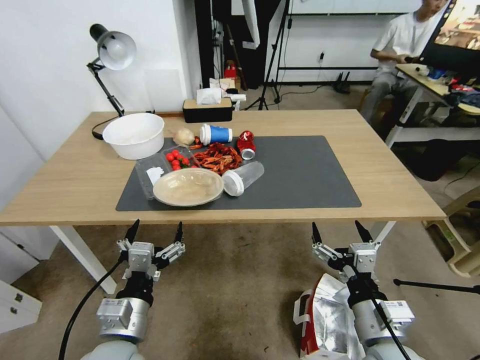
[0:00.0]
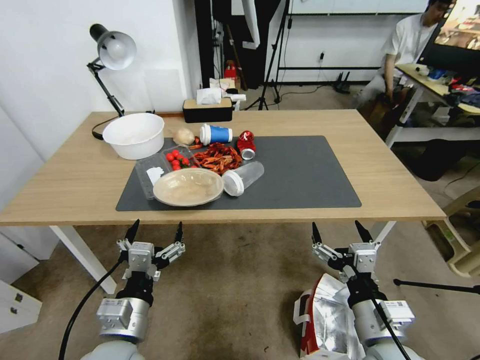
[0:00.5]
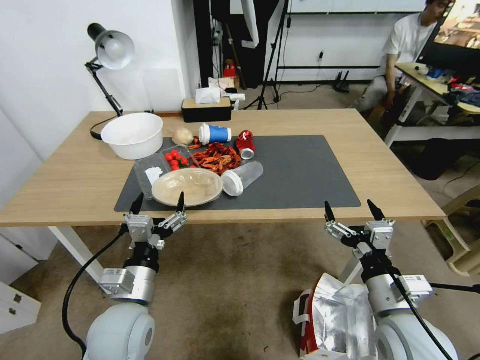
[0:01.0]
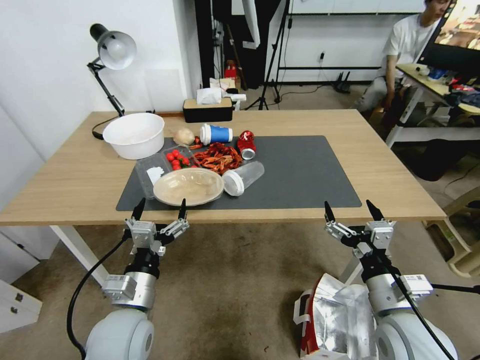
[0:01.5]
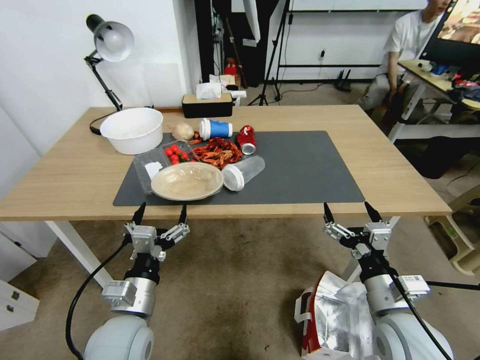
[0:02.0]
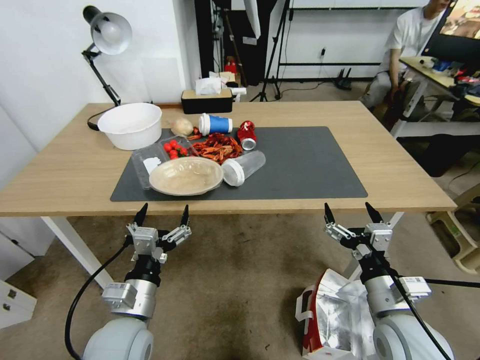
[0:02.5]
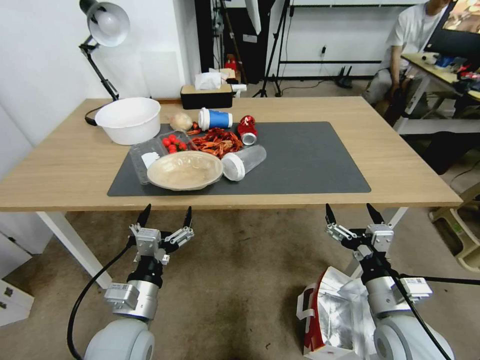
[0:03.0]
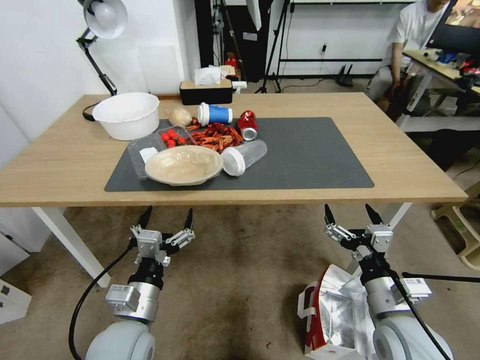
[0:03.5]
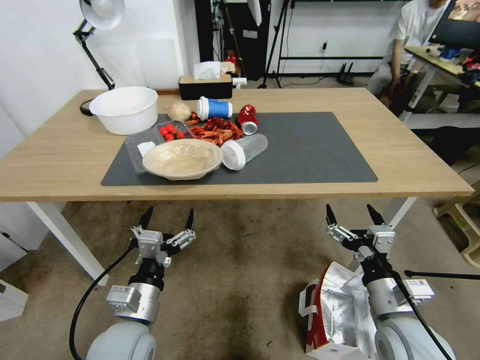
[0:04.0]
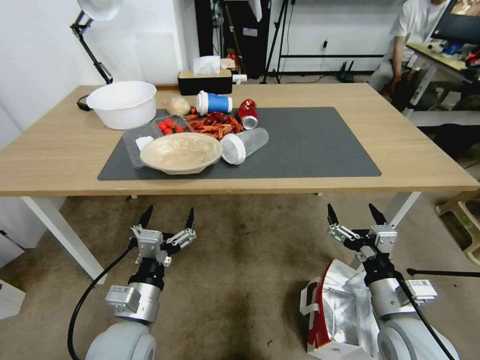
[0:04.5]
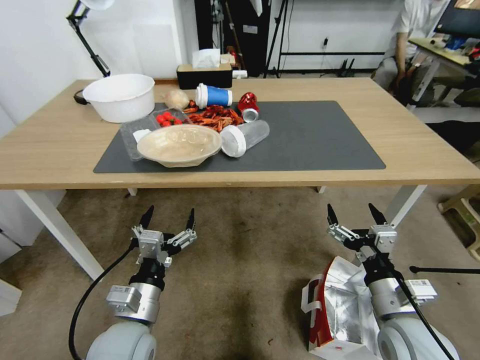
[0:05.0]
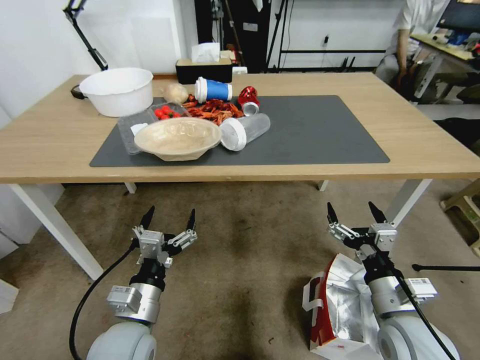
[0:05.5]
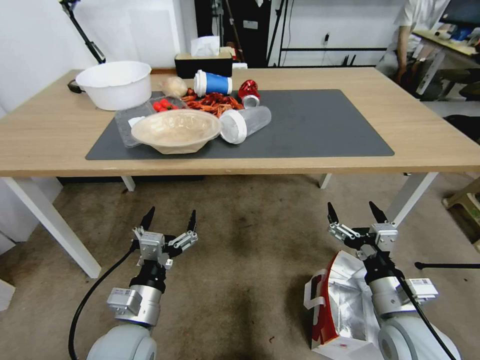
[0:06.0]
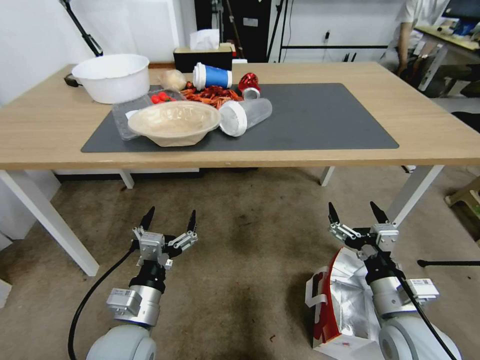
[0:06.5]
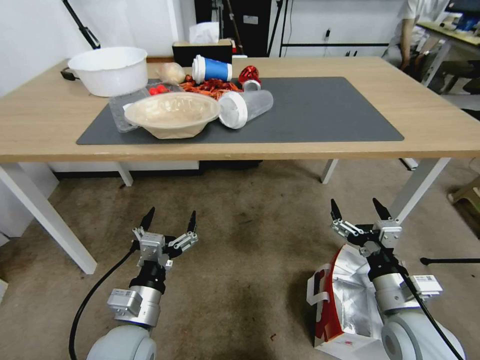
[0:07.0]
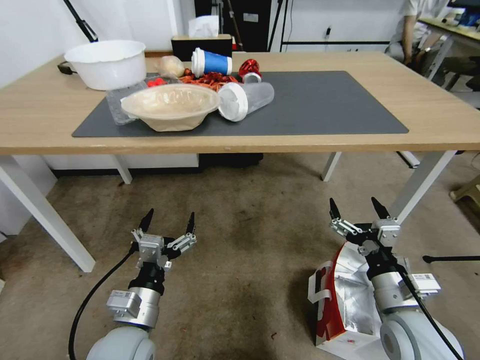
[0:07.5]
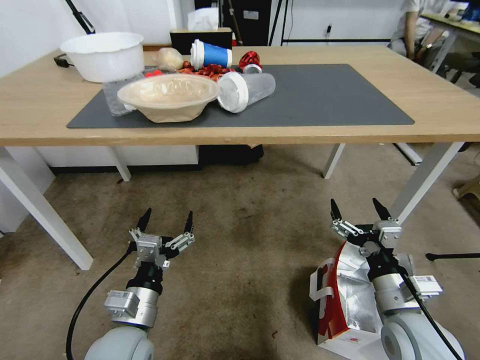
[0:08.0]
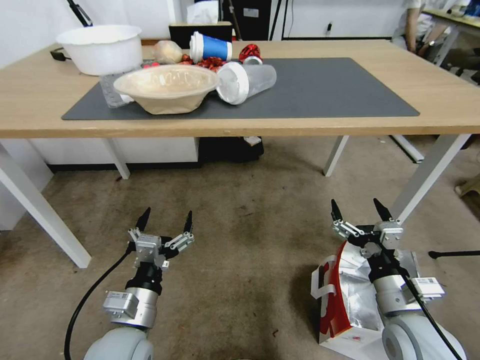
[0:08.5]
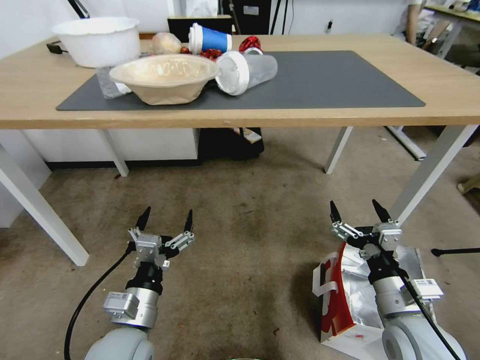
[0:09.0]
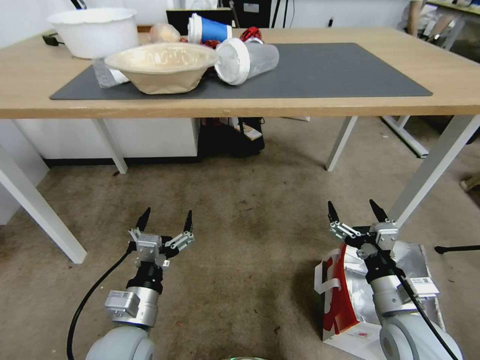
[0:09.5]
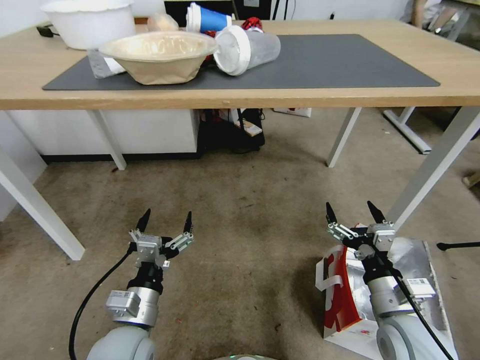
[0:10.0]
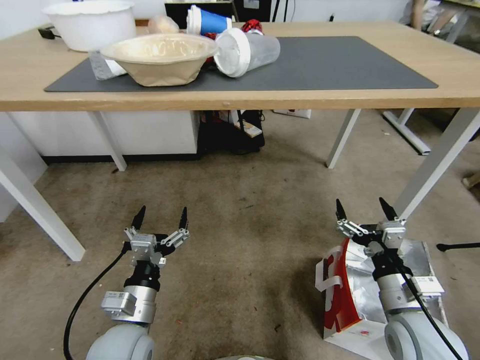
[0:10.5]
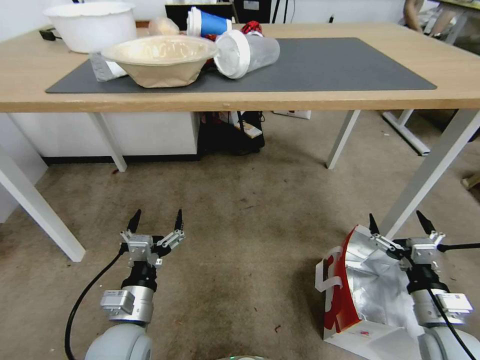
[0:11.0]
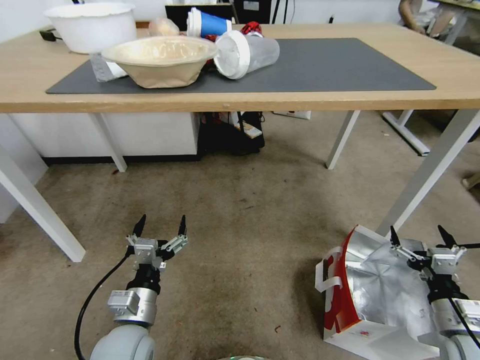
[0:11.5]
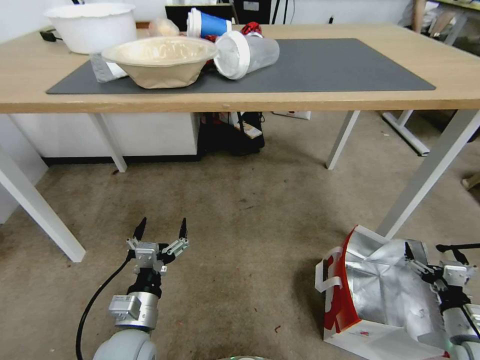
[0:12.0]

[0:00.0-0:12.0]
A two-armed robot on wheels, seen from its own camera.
Task of the whole recording: Pick up the food delivery bag from the floor and place it on the table.
0:10.0 to 0:12.0: The right gripper travels to the right and downward by approximately 20 cm.

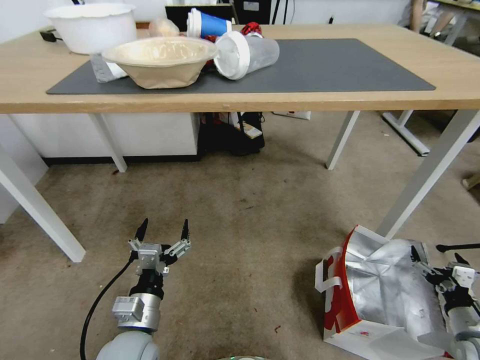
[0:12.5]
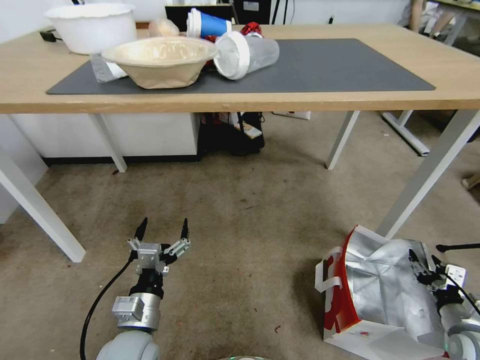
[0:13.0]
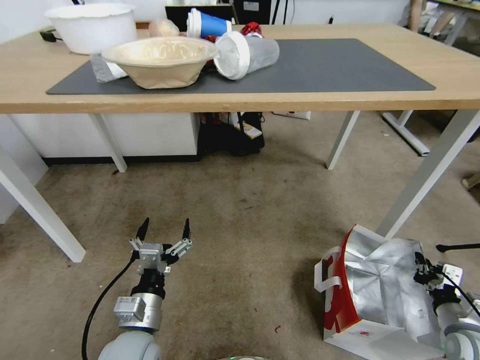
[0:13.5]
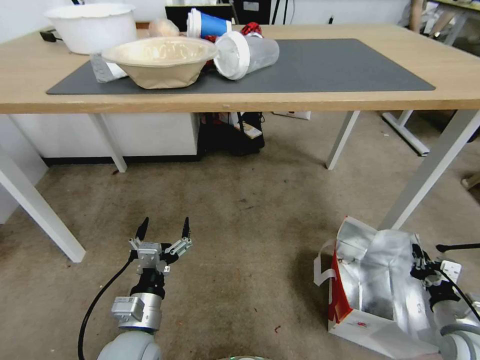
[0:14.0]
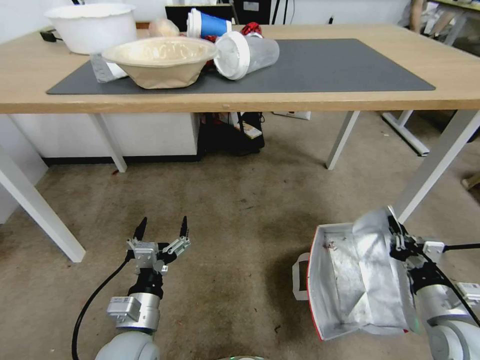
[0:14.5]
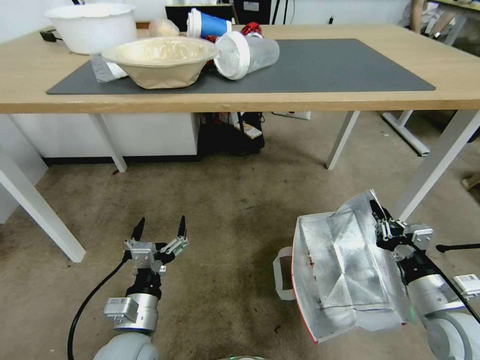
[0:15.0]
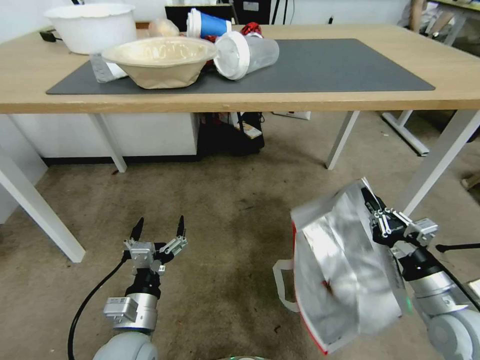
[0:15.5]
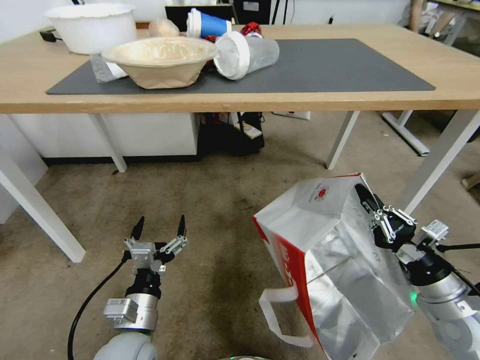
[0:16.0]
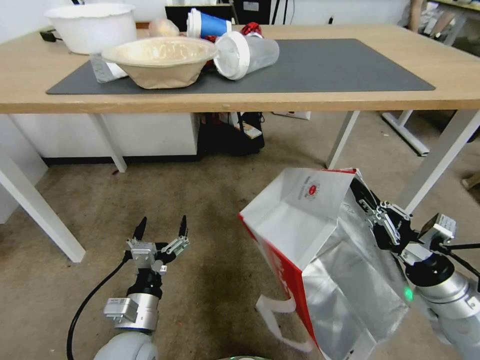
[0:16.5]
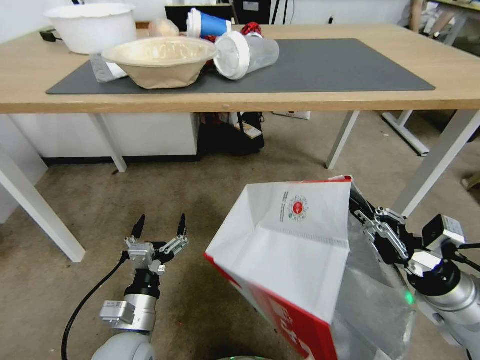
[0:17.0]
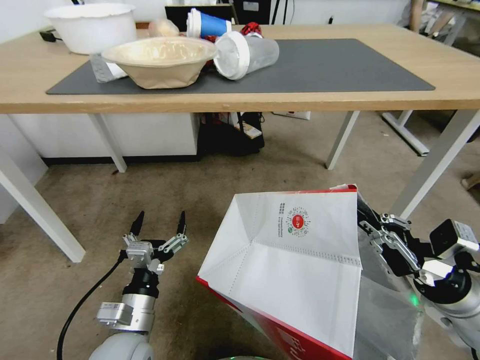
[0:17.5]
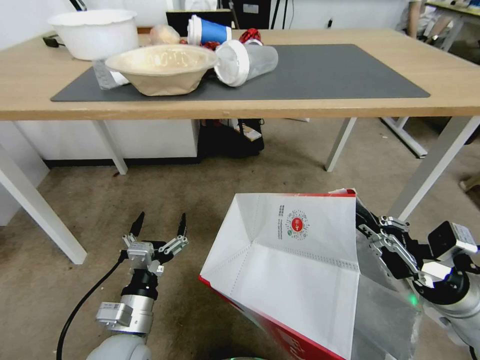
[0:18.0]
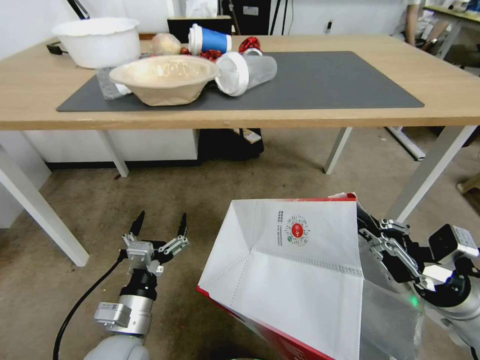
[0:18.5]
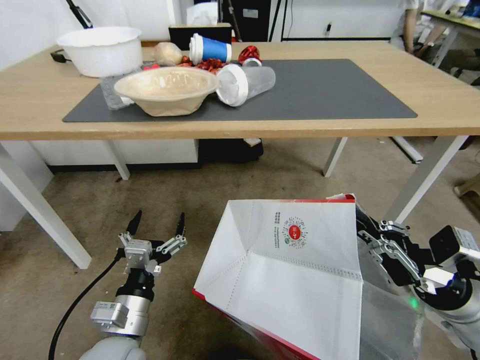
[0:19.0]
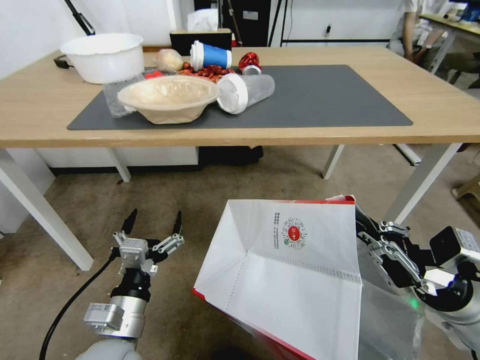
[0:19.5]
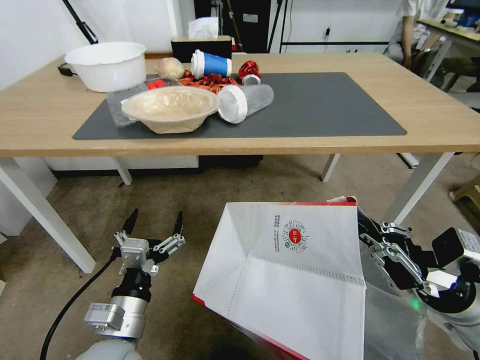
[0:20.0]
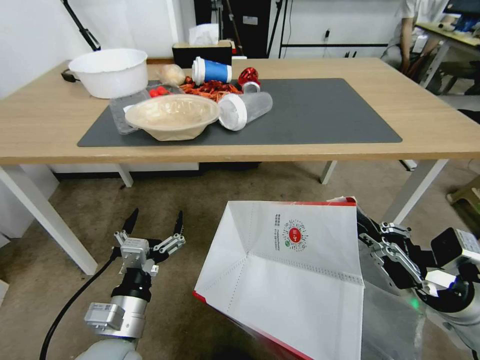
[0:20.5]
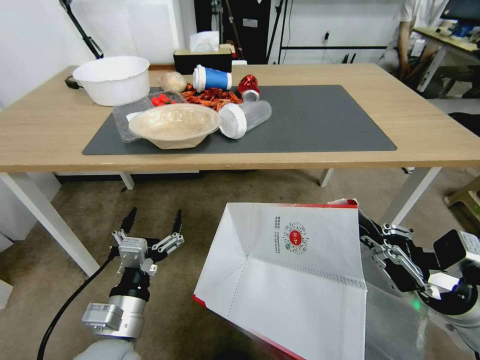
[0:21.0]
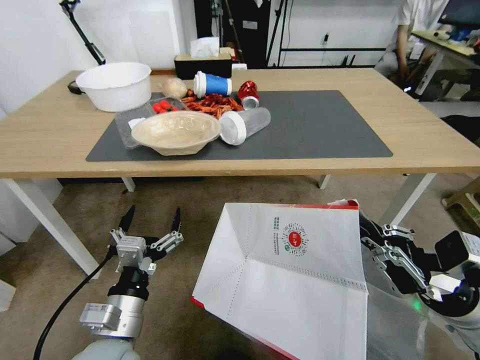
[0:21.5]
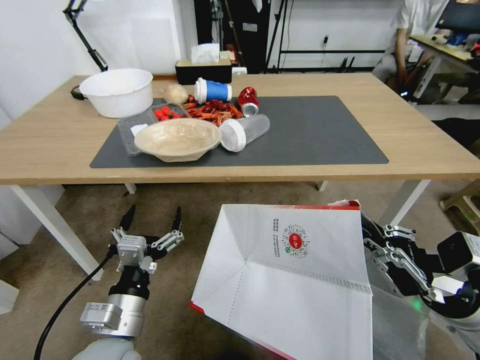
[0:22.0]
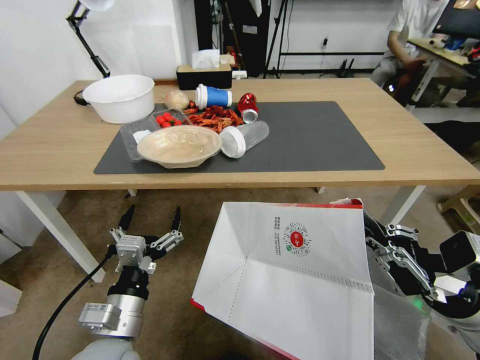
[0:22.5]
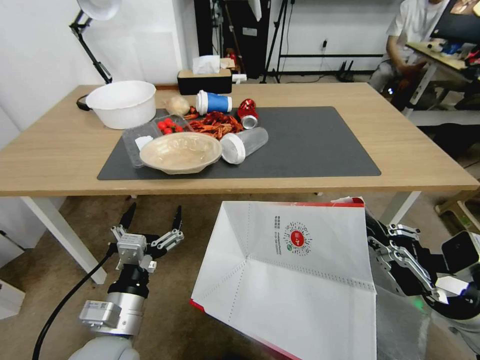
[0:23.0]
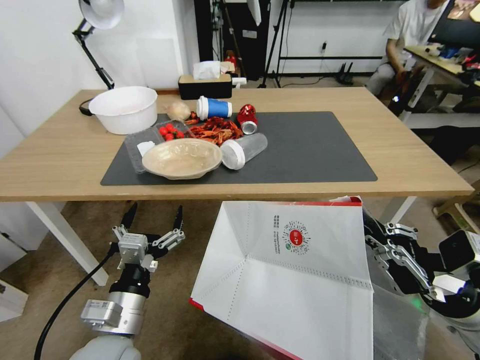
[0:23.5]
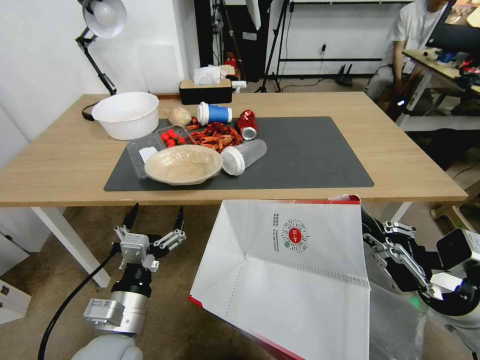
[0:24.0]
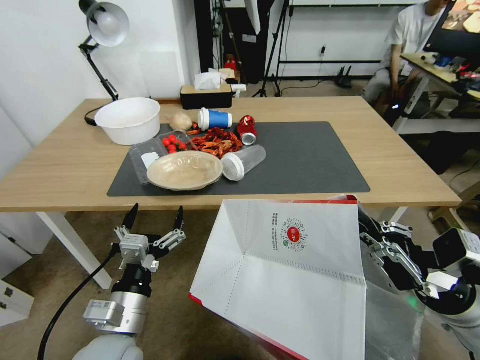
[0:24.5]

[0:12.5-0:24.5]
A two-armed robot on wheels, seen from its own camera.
Task of the whole recording: Pick up the food delivery bag from the floor and place it on the table.
0:12.5 to 0:14.5: The right gripper travels to the left and upward by about 10 cm, and closes up.
0:14.5 to 0:16.5: The right gripper moves upward, roughly 10 cm.

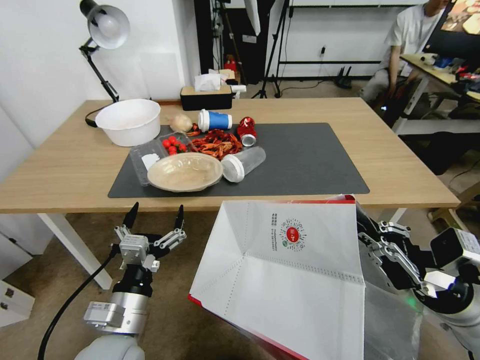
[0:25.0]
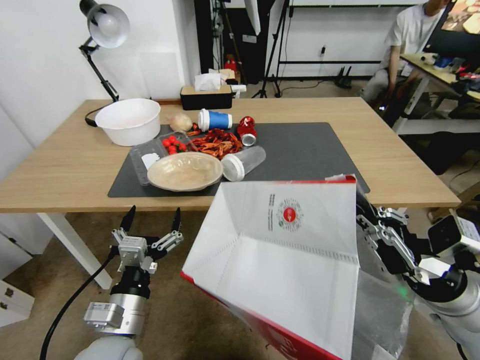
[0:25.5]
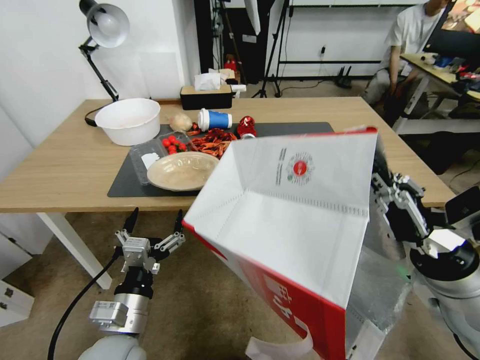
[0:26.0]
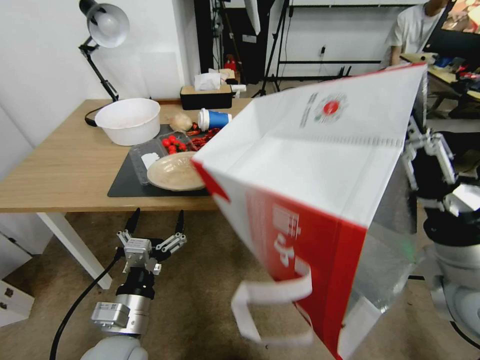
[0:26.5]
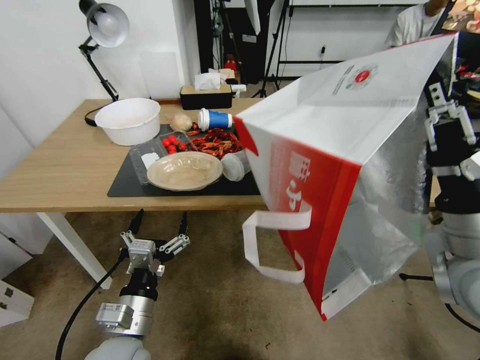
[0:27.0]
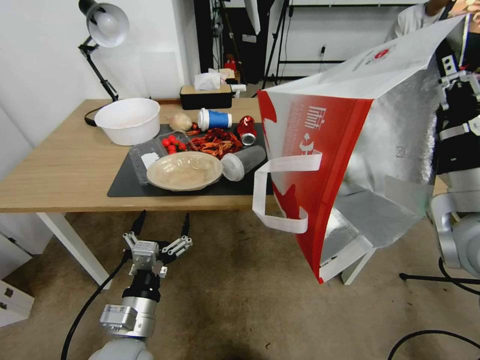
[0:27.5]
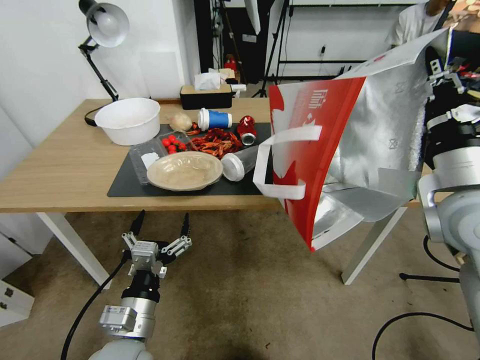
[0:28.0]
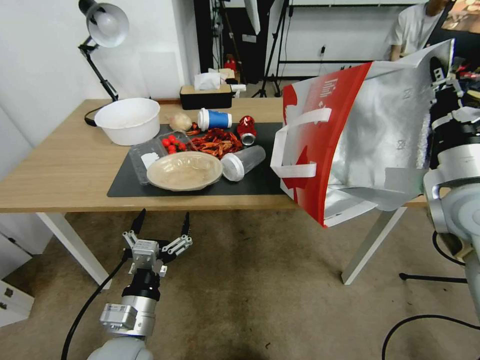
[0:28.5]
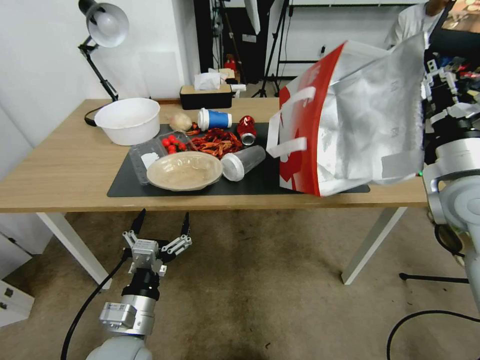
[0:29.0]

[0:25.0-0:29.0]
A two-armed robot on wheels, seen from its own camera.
Task of the whole recording: Pick up the food delivery bag from the floor and place it on the table.
0:25.0 to 0:27.0: The right gripper heads upward and to the left, covering some 10 cm.
0:27.0 to 0:29.0: The right gripper is displaced forward and to the right by some 15 cm, and opens its fingers.
